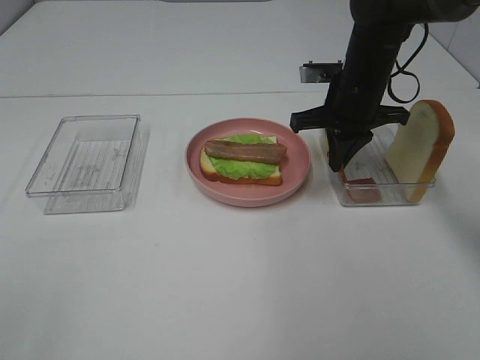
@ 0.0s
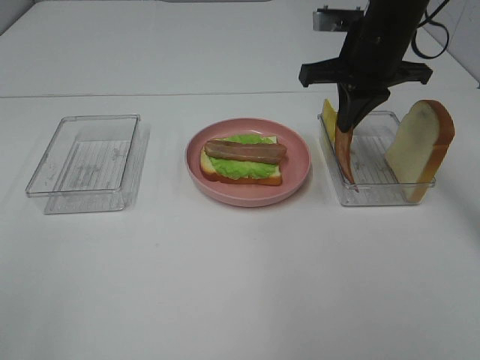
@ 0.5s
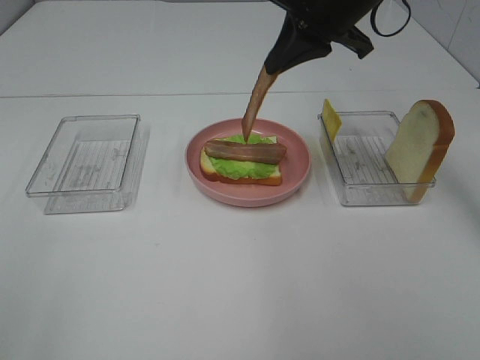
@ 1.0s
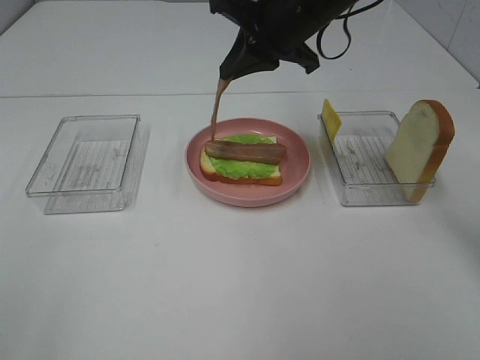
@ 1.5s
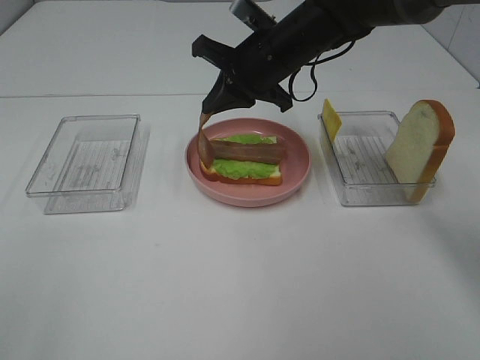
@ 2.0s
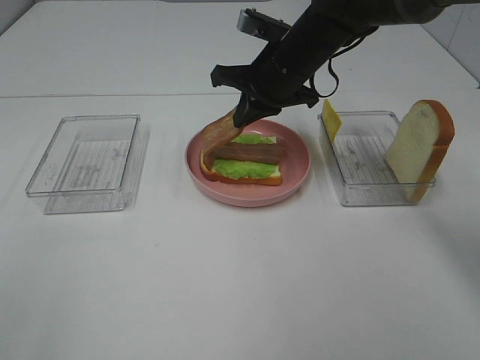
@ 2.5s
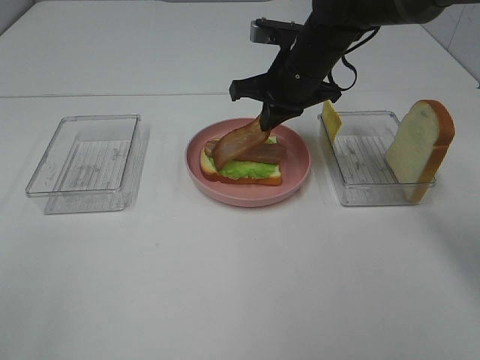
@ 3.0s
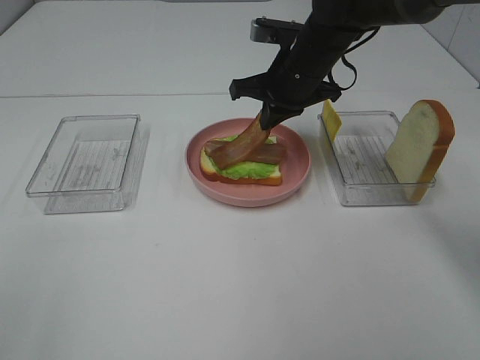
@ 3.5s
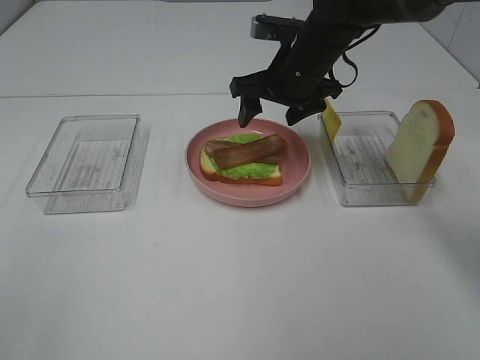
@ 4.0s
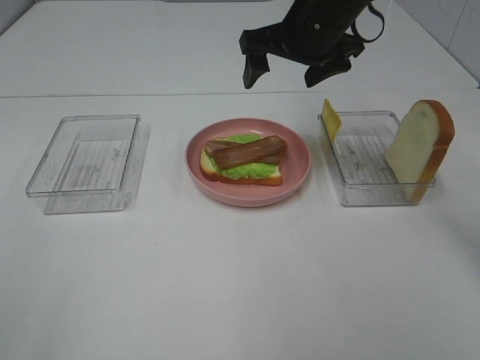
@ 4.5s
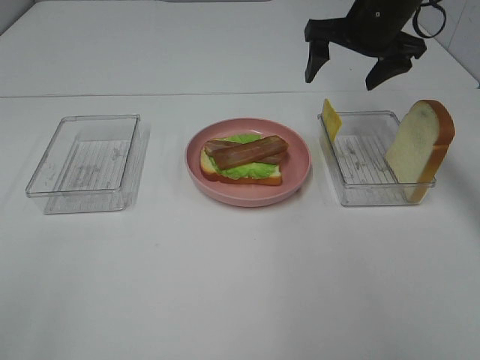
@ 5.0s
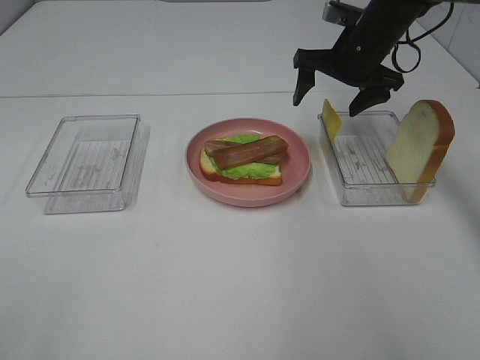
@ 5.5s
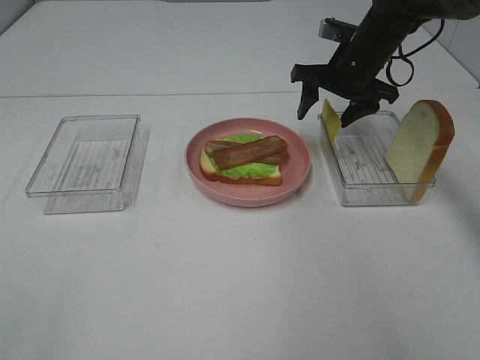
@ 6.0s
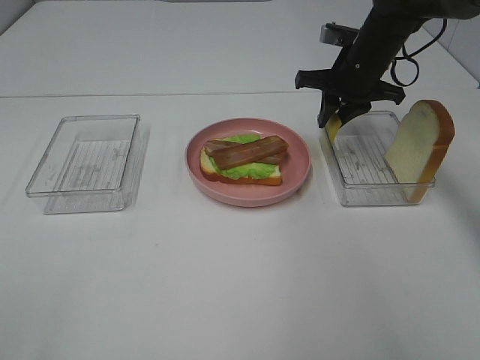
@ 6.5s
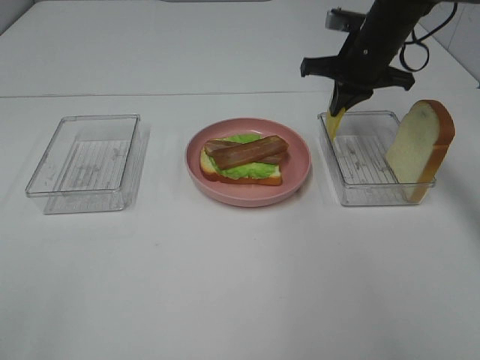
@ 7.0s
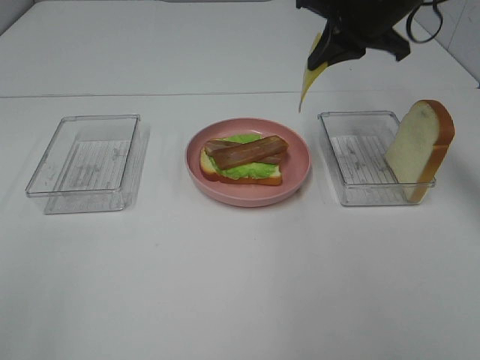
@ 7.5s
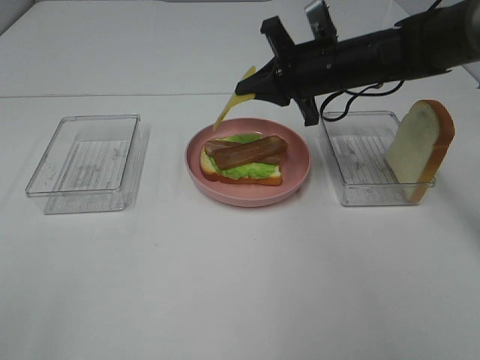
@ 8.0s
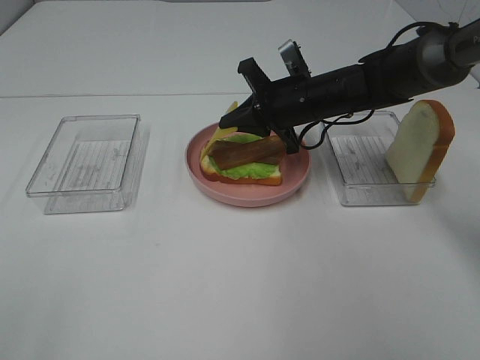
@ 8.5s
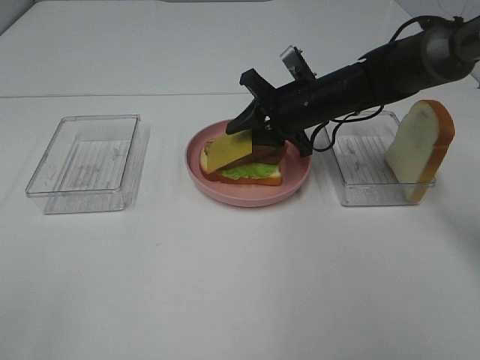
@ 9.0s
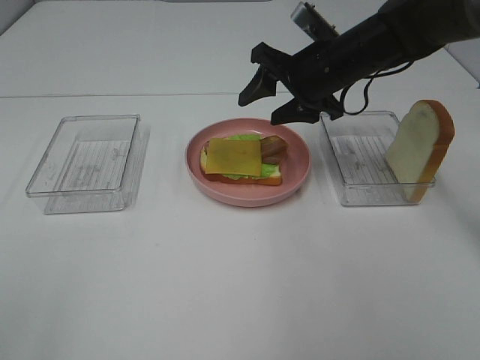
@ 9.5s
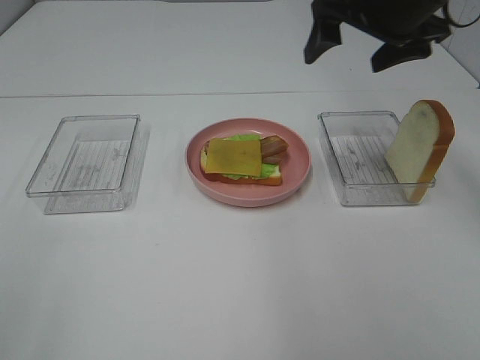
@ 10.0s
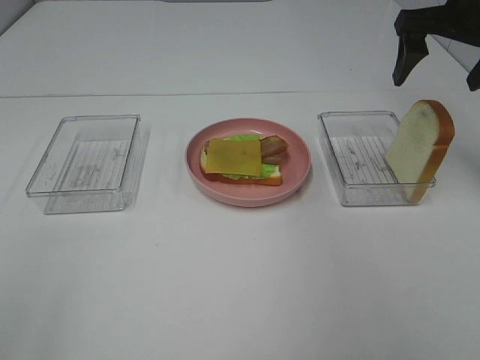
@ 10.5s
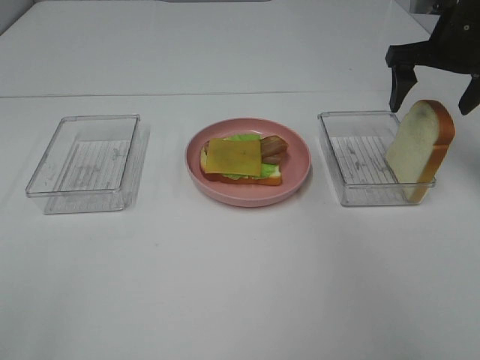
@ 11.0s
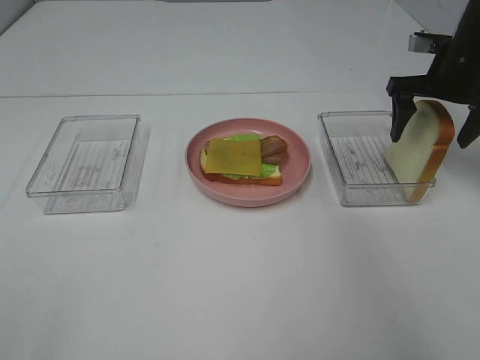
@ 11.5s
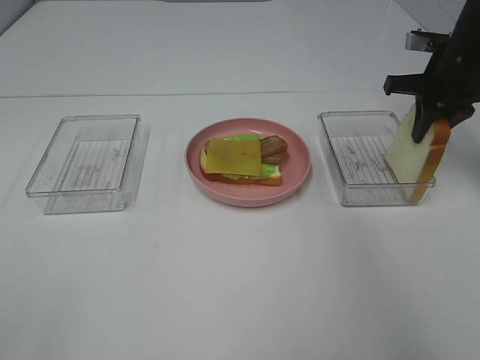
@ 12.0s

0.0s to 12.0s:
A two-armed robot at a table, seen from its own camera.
Task of the whole recording: Make sandwiches.
Step, 1.0s to 4.0s: Right hand:place bacon on bacon.
Step, 4.5s to 6.5s: Right hand:grab the cheese slice.
Step, 7.0s to 9.5s: Right hand:place the cheese slice on top of the bacon.
0.0s to 2.0s: The right gripper heads to the left, covering approximately 10 cm, and reaches some 10 cm upward, then returns.
2.0s to 4.0s: The right gripper opens.
4.0s to 6.0s: The right gripper heads to the right, covering about 10 cm.
6.0s to 8.0s: The right gripper moves backward and to the left, approximately 10 cm, reaches some 10 cm upward, then returns, and closes up.
8.0s to 10.0s: The right gripper heads upward and to the right, covering about 15 cm, and opens its fingers.
10.0s to 12.0s: The right gripper is displaced to the right, downward and forward by roughly 15 cm, and closes up.

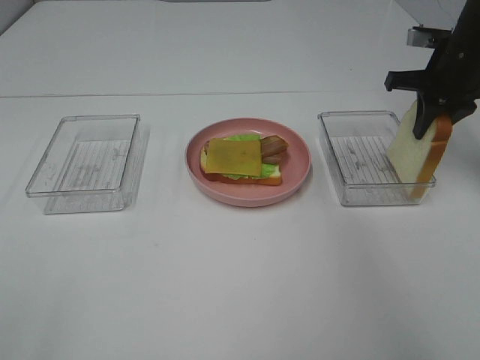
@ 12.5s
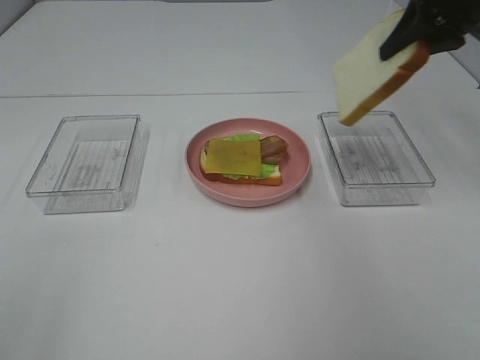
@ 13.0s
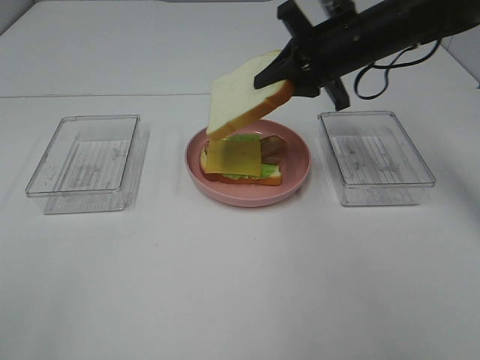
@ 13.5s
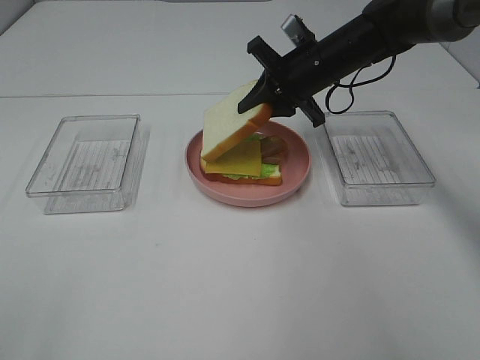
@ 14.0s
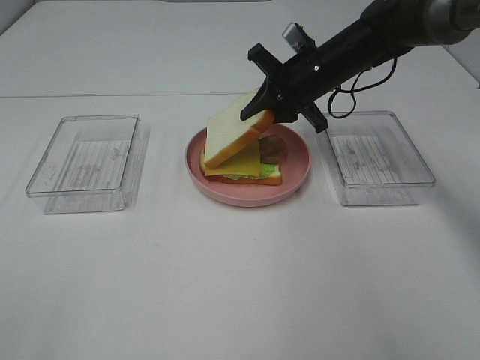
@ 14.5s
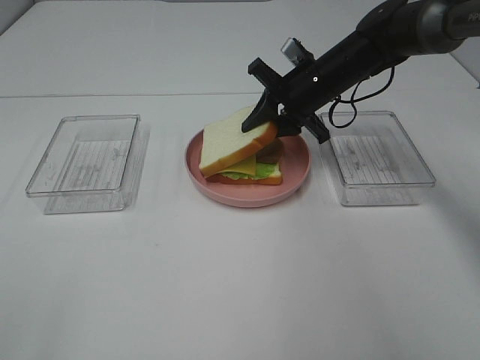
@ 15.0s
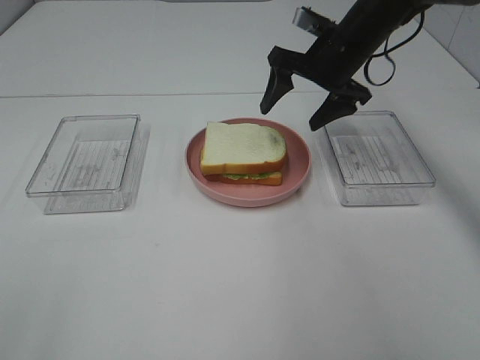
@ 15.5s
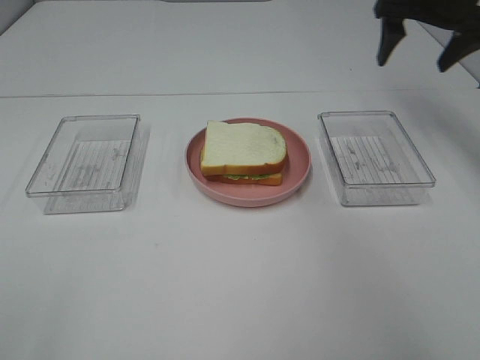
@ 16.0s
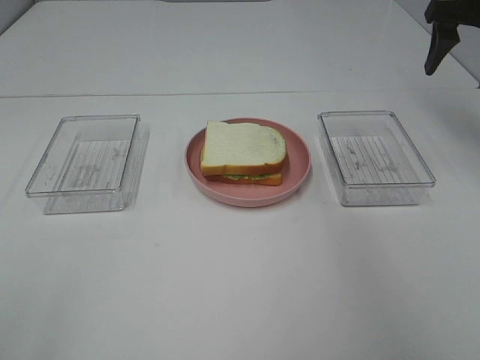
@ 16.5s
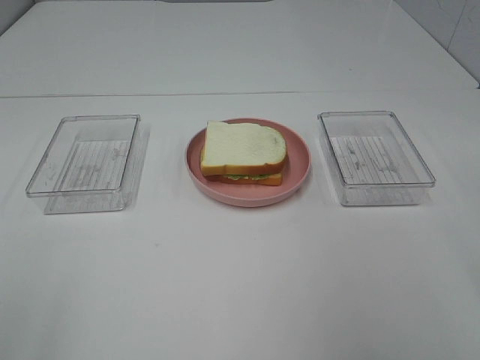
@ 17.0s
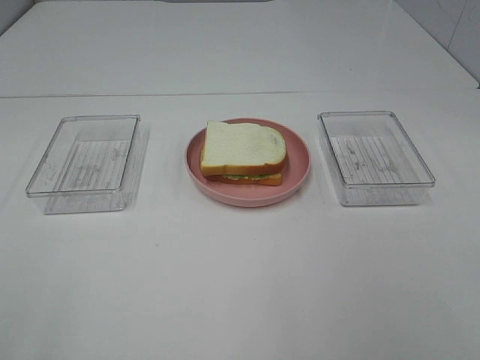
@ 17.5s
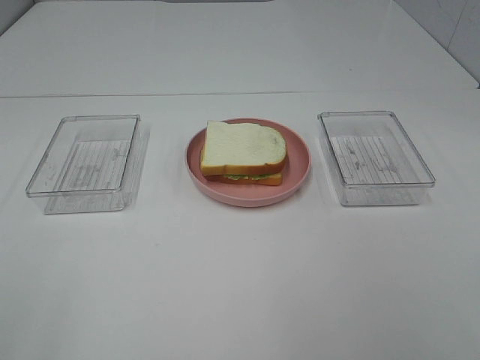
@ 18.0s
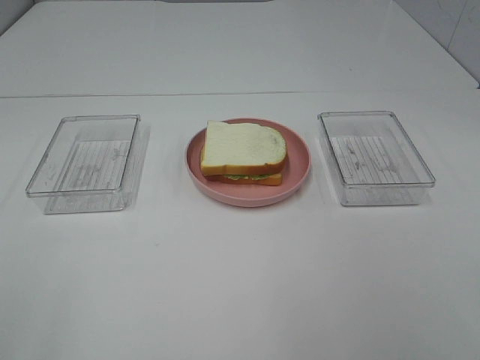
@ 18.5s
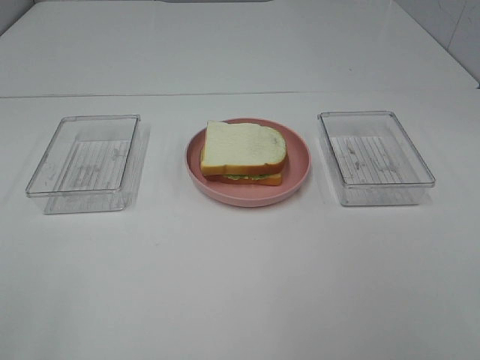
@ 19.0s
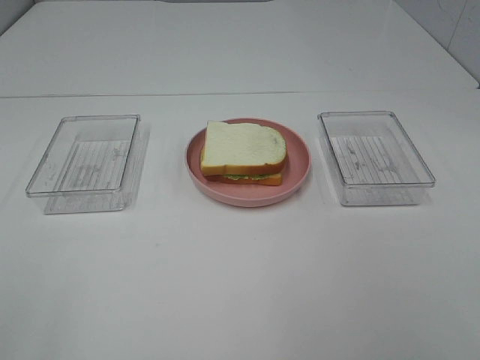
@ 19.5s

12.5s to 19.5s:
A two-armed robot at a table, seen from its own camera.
Task of the whole recording: Make sandwiches.
Step, 12.5s to 15.5s: Right hand:place the bread slice on the cheese slice.
12.5s to 14.5s: The right gripper travels to the left by some 15 cm.
14.5s to 16.0s: The right gripper shifts roughly 20 cm to the right and upward, and opens.
16.0s to 17.5s: The right gripper shifts some 50 cm backward.

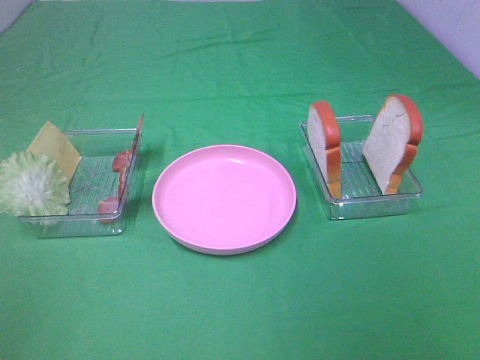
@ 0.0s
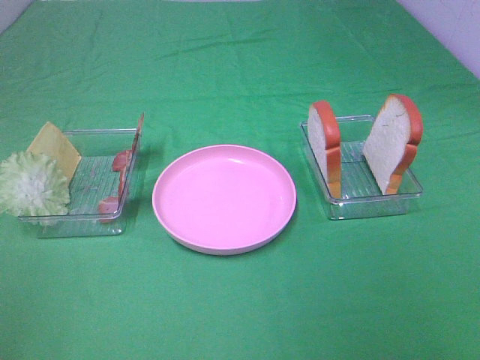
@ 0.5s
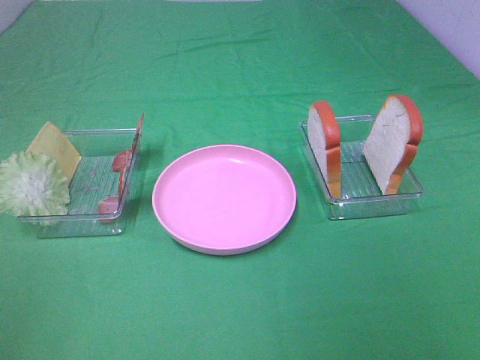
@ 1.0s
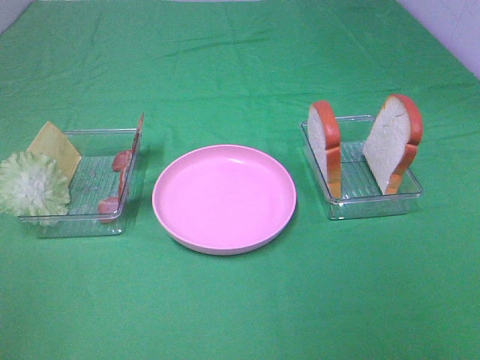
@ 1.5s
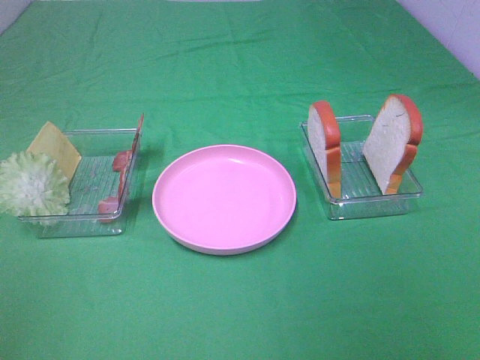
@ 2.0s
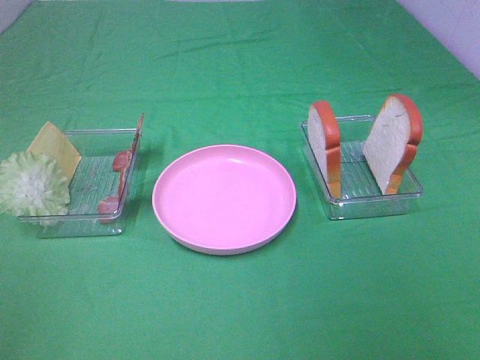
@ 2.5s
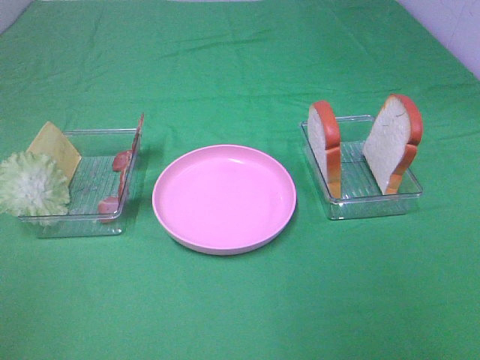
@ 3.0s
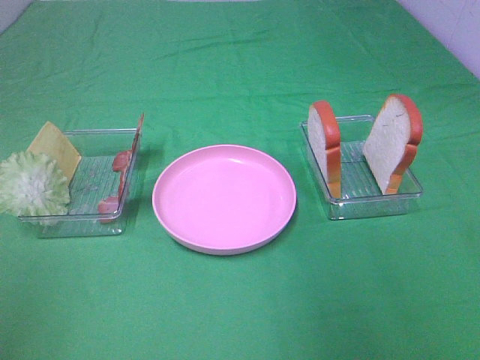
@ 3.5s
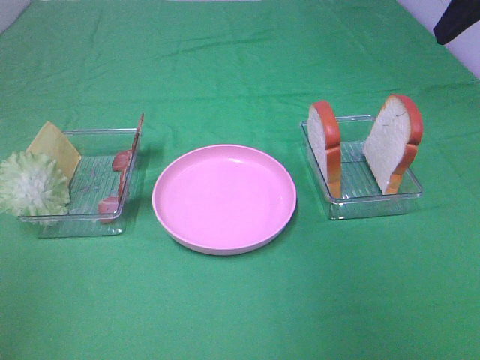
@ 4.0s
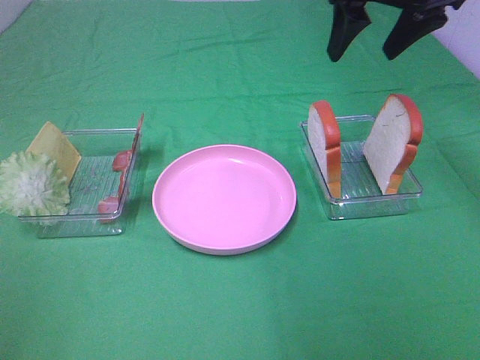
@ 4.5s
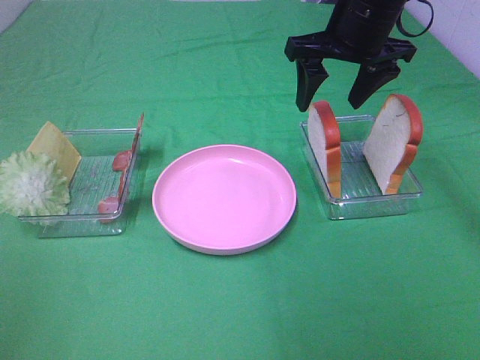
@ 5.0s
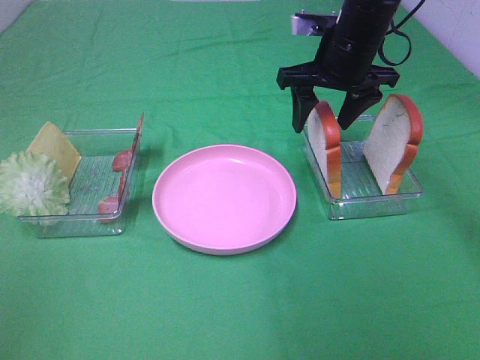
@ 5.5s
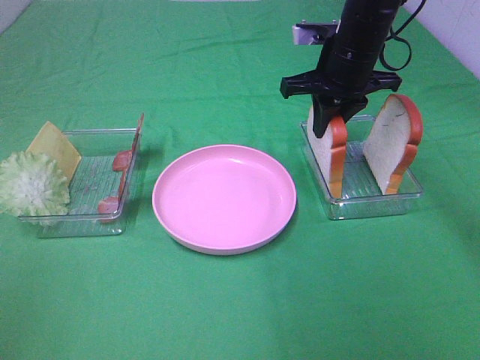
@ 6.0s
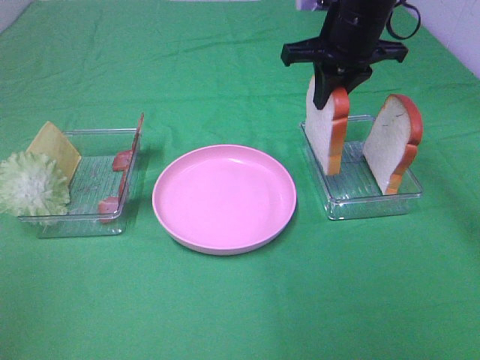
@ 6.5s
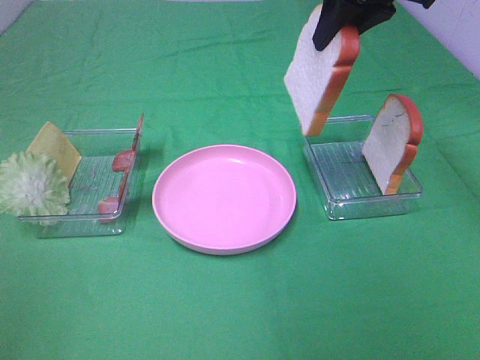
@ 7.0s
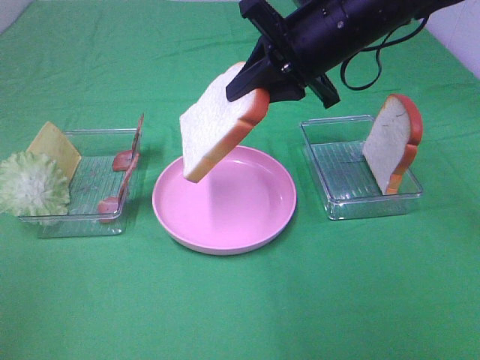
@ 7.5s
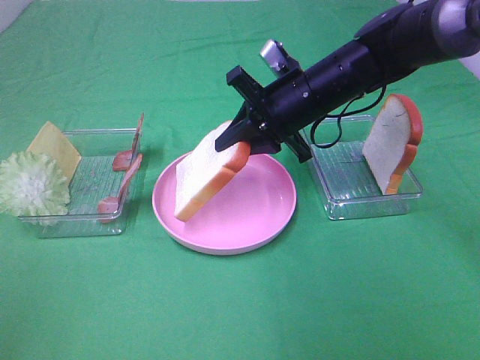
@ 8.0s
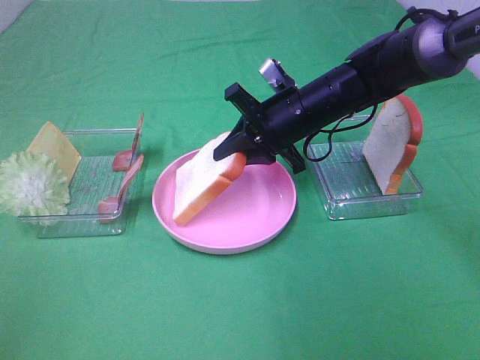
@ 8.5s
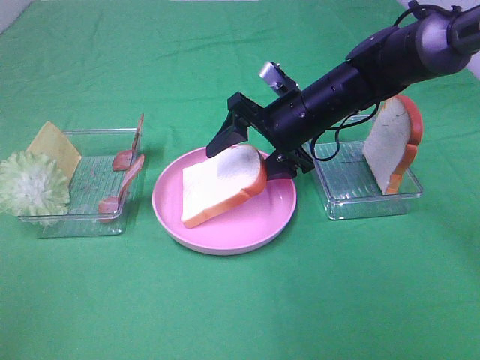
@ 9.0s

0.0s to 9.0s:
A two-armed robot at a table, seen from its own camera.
Task of the whole recording: Make sandwiches.
Step, 0.0s to 5.5s: Right hand:grab the bread slice.
0.0s to 2.0s: Both grippers stay put.
2.0s to 4.5s: The right gripper shifts about 40 cm forward.
4.5s to 7.0s: The right gripper travels downward and back again, some 10 cm each way, and closes.
7.0s to 9.0s: The right gripper is displaced downward by roughly 20 cm, and opens up.
